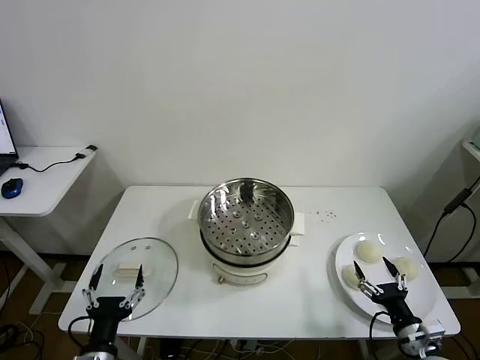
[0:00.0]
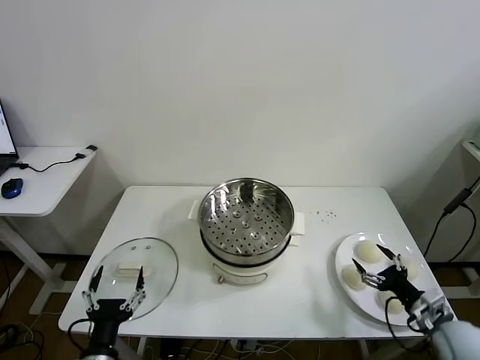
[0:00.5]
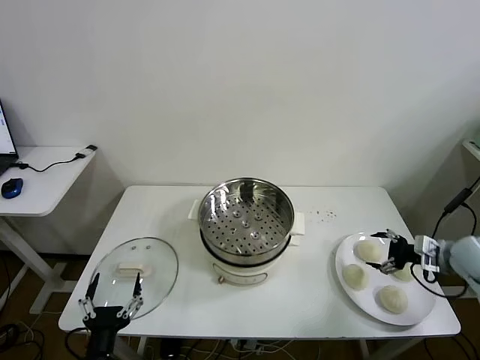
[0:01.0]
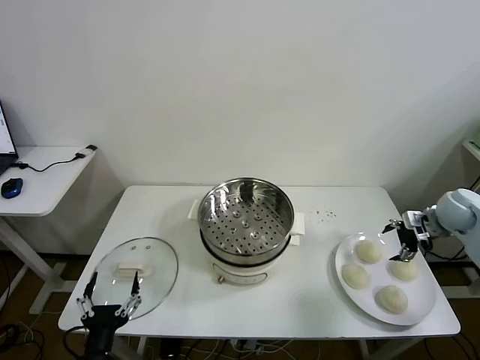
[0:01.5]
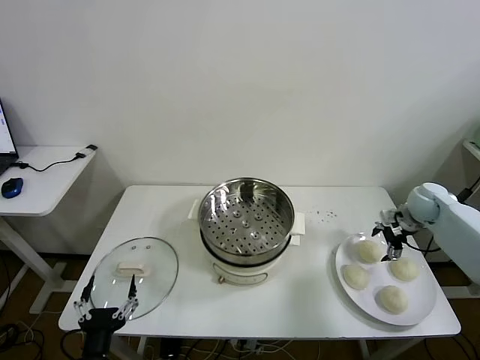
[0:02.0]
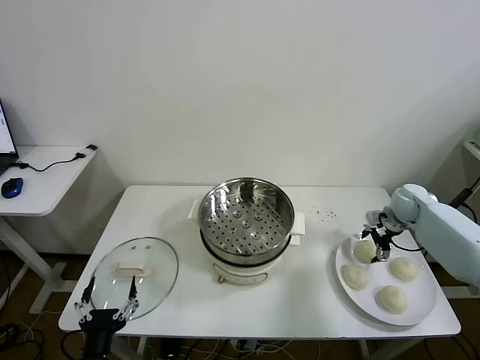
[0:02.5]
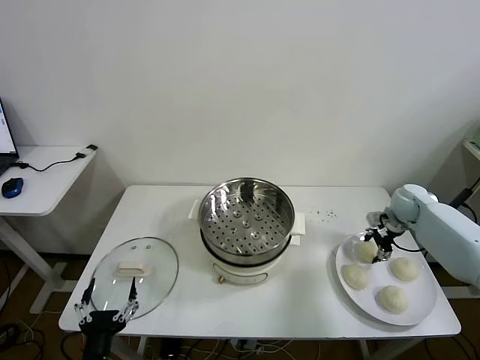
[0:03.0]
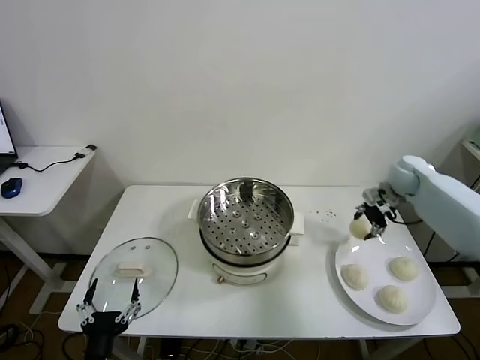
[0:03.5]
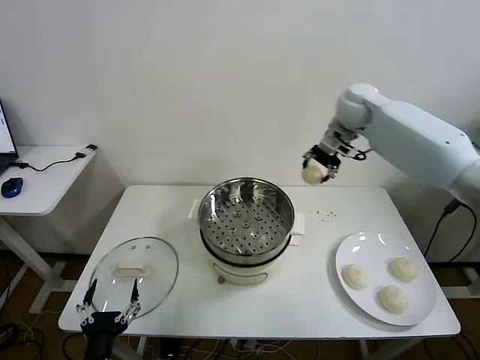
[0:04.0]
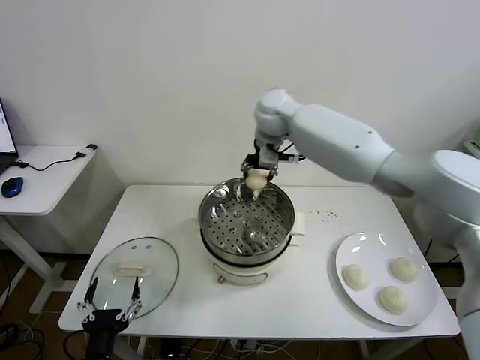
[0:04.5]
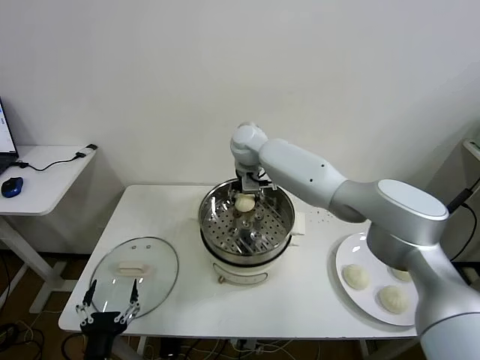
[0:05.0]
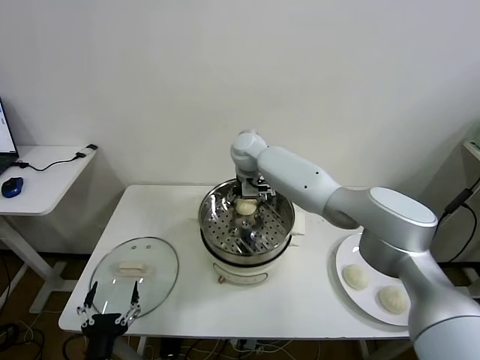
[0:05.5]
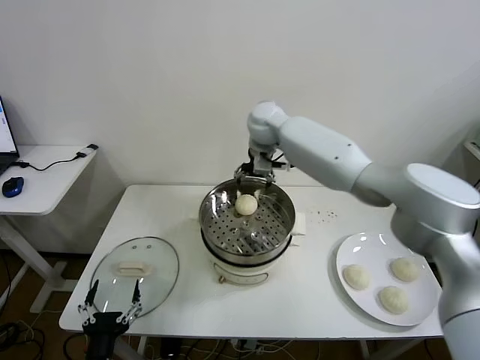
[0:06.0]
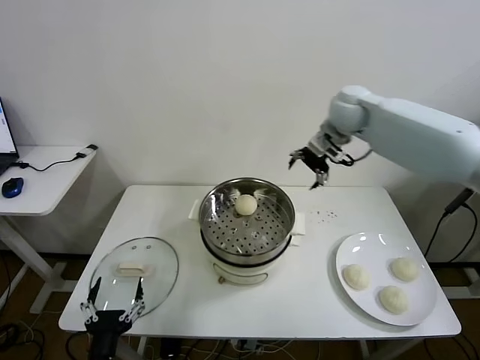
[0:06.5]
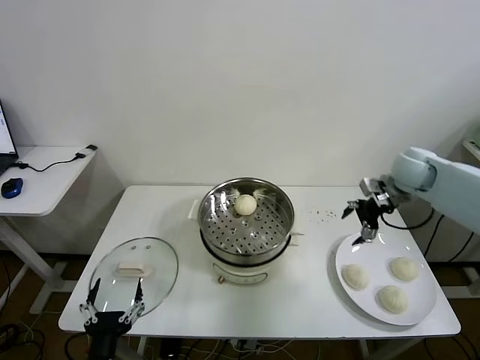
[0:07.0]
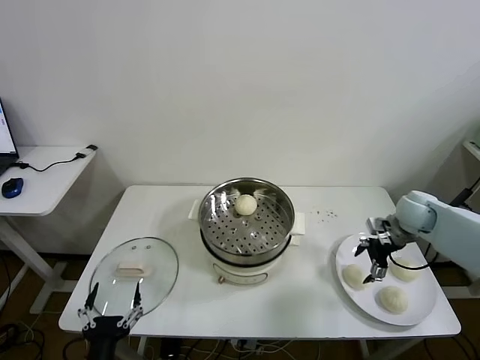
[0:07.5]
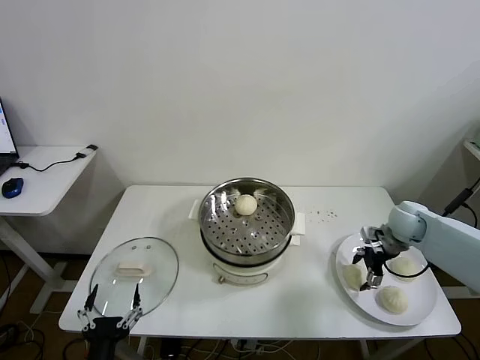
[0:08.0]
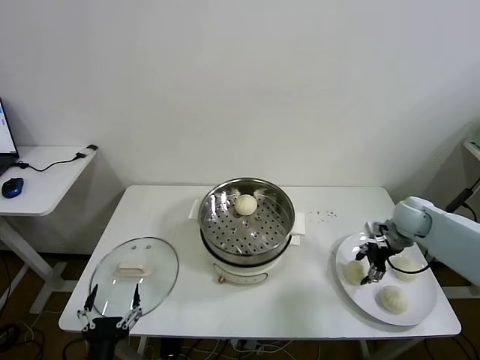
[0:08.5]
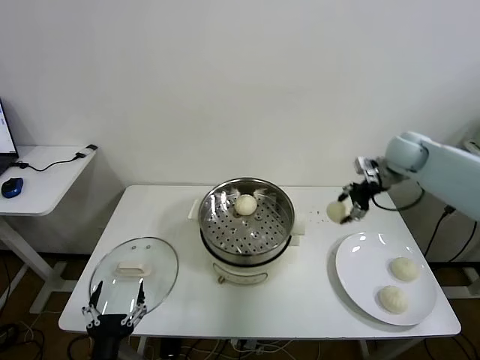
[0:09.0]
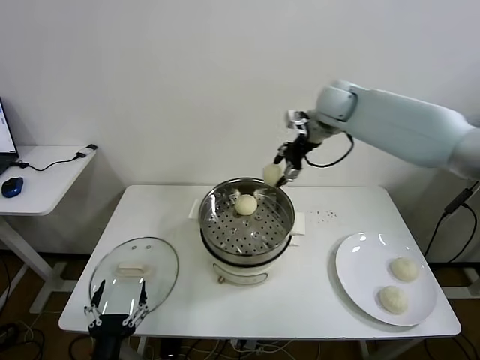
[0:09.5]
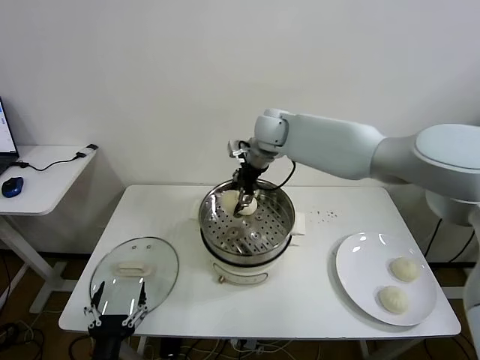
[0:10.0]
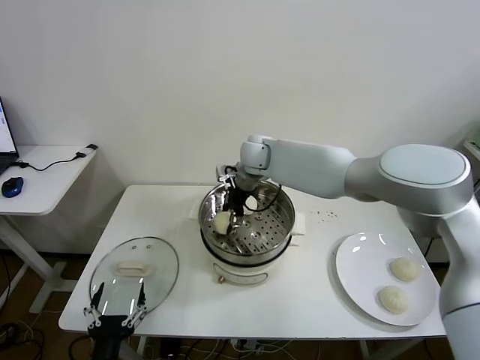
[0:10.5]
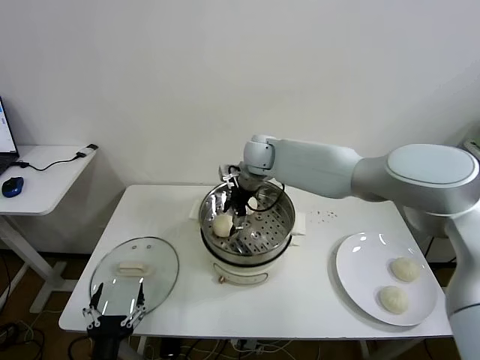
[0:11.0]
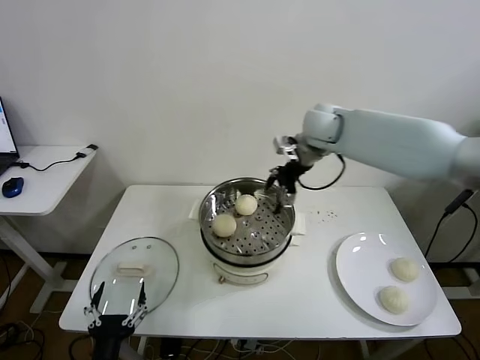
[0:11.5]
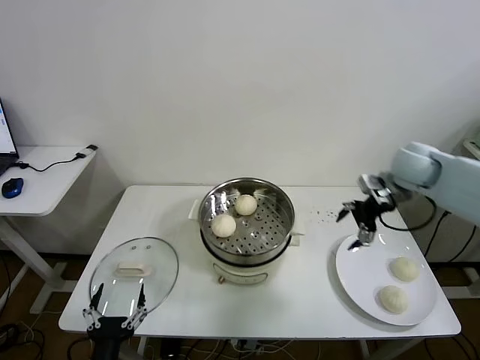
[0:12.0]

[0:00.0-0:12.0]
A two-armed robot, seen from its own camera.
Task of the whole recording: take steamed baozi put them in steamer then cover it.
Step, 0:00.0 to 0:03.0: Grasp the baozi in the plate with right gripper.
Step, 0:03.5 to 0:05.5: Place the baozi on the steamer with right gripper.
Step, 0:06.0 to 0:08.5: Grasp the baozi in the plate with right gripper.
Step, 0:09.0 to 0:11.0: Place the baozi on the steamer with right gripper.
0:02.0 to 0:04.0: The right gripper shifts about 35 cm to the left and upward, and closes.
0:04.0 to 0:06.0: The right gripper is displaced to the left by roughly 15 cm, and opens.
0:06.0 to 0:08.0: The right gripper is displaced to the right, downward and backward by approximately 40 cm.
0:08.0 to 0:10.0: The right gripper is displaced to the left and upward by roughly 40 cm, and closes its fingers.
0:10.0 to 0:12.0: The right gripper is displaced to the right by about 30 cm, and opens.

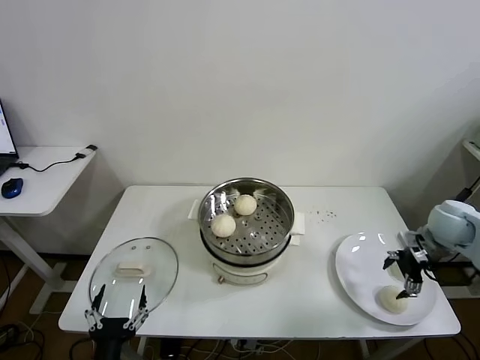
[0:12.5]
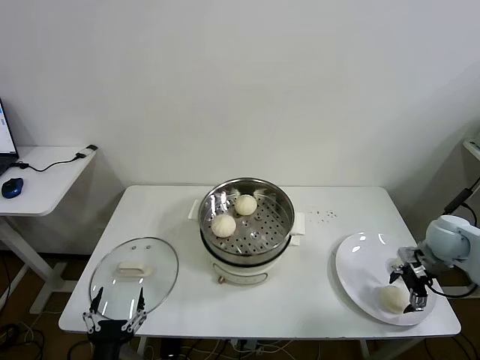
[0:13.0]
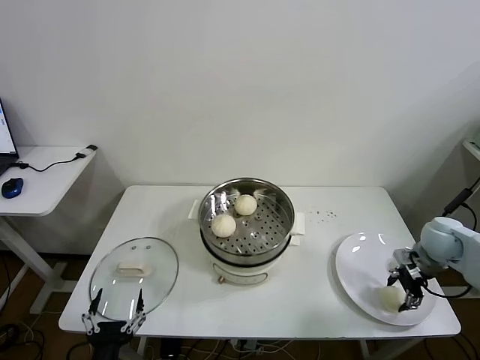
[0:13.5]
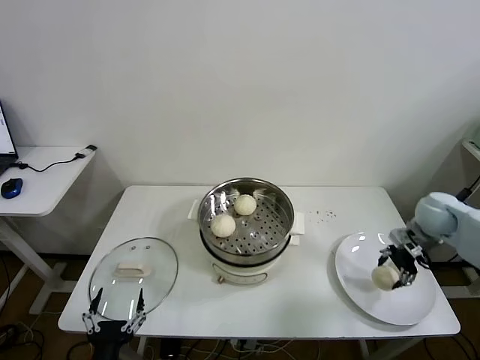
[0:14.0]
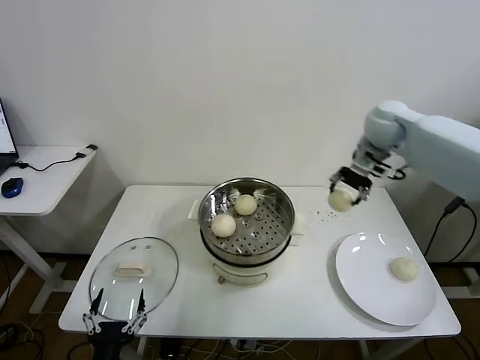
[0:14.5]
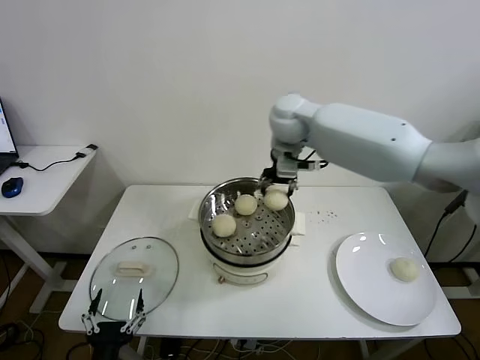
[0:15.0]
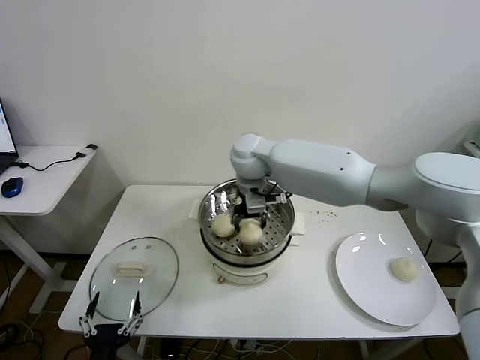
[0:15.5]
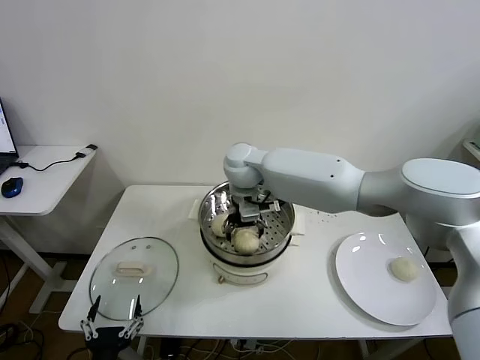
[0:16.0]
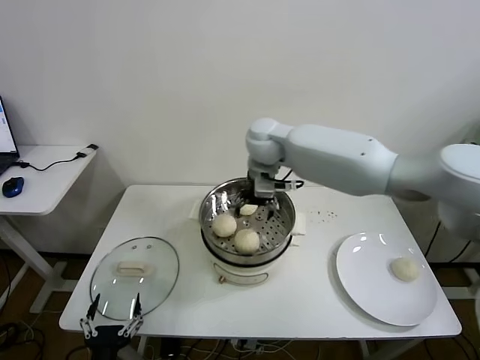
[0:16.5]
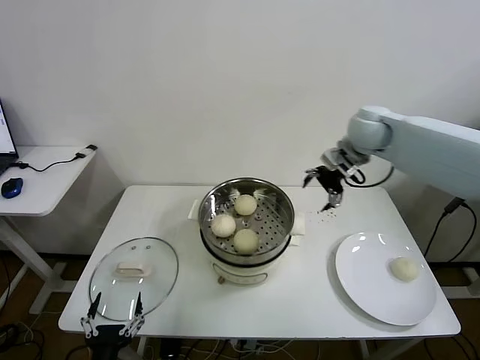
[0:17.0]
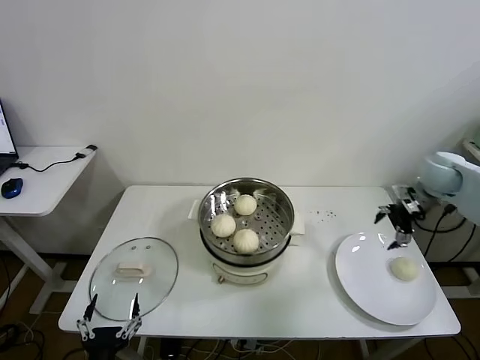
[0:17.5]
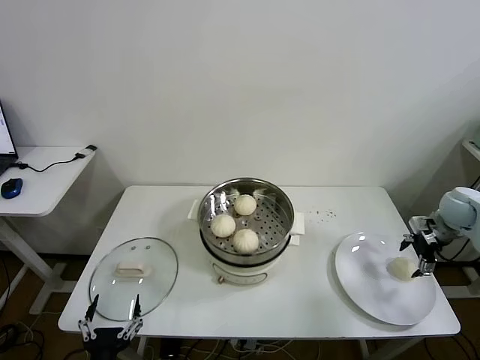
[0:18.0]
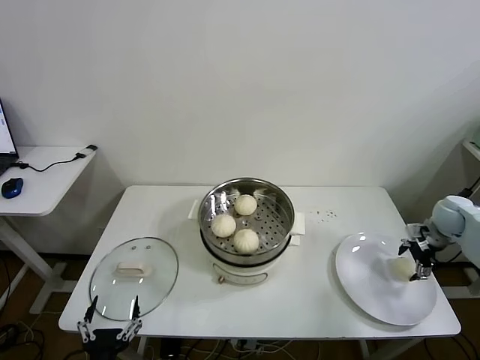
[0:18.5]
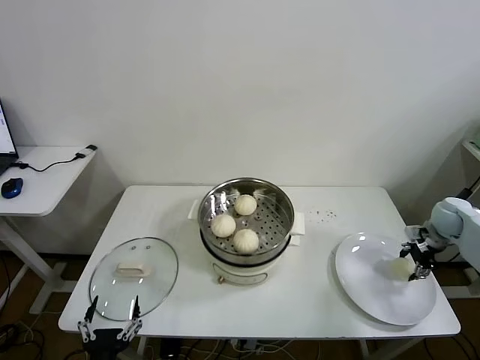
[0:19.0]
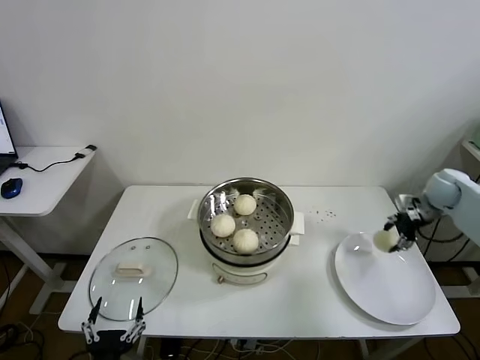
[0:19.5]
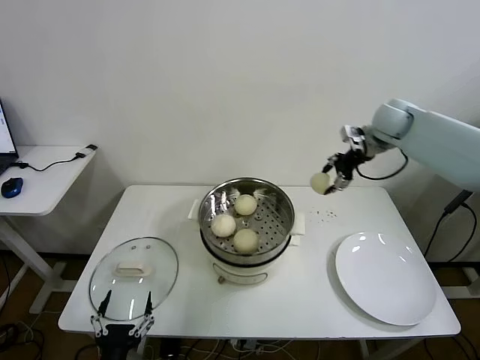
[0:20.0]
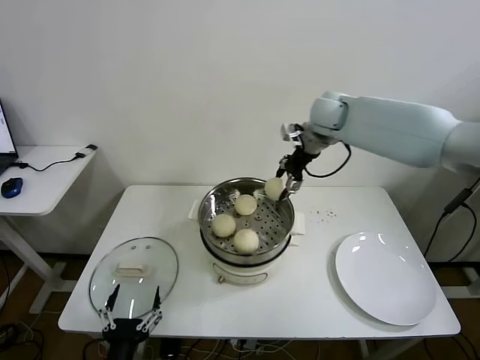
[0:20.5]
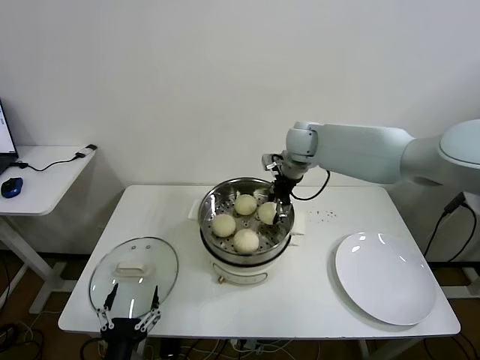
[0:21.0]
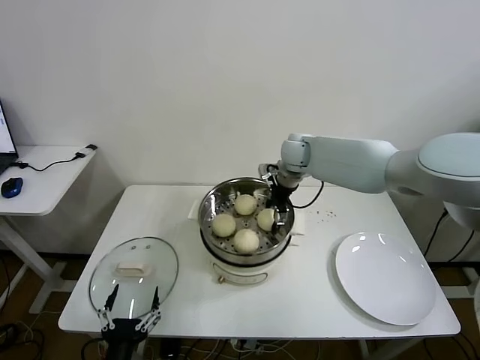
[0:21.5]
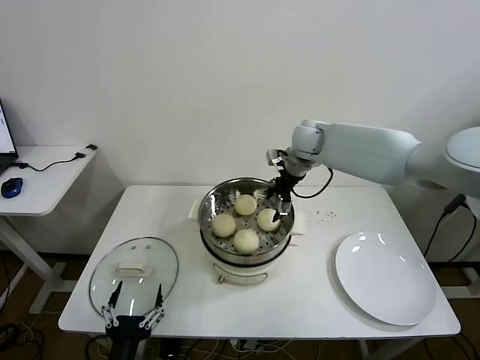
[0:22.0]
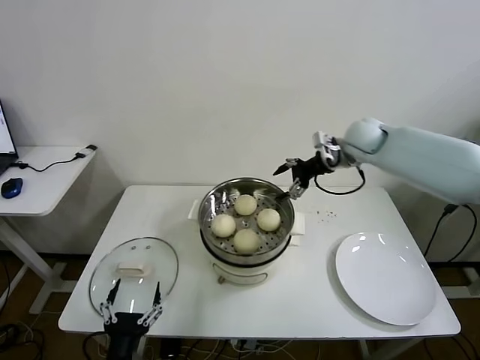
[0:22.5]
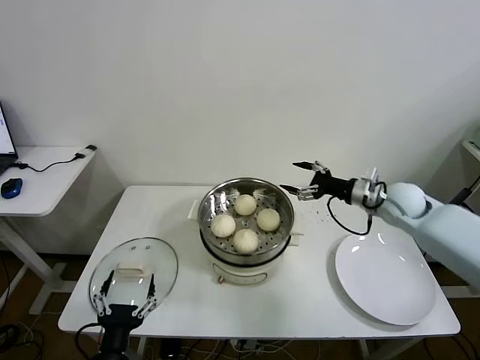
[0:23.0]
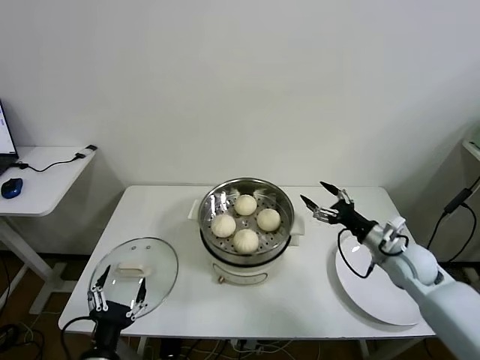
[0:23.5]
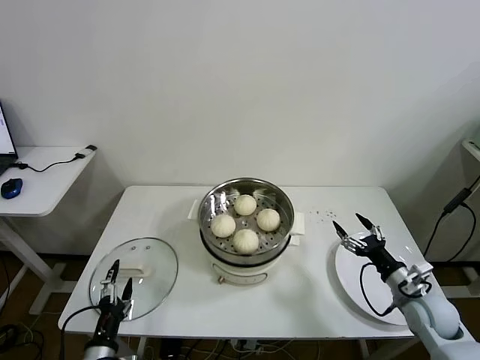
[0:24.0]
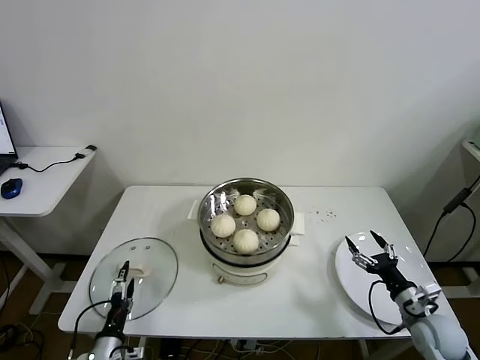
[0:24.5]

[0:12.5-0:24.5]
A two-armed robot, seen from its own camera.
Task of the whole recording: take steamed baozi put them in steamer then cover it.
Step, 0:14.0 to 0:16.5: Place the baozi on the steamer with right gripper.
Step, 0:17.0 to 0:19.0: Grasp the baozi in the plate with right gripper.
Step, 0:19.5 to 0:21.5: Place the baozi on the steamer with right gripper.
0:12.5 to 0:14.5: The right gripper is displaced upward, to the left and forward by approximately 30 cm, and closes.
0:14.5 to 0:16.5: The right gripper is displaced to the left by approximately 25 cm, and opens its fingers.
0:16.5 to 0:18.5: The right gripper travels to the right by some 50 cm.
0:18.5 to 0:20.5: The right gripper is displaced to the left and upward by roughly 40 cm, and closes its fingers.
0:20.5 to 0:22.5: The right gripper goes roughly 10 cm to the right and downward, and opens its fingers.
0:22.5 to 0:24.5: The right gripper goes about 50 cm backward, downward and to the right. Meanwhile the left gripper travels downward, to the left and forward by roughly 15 cm.

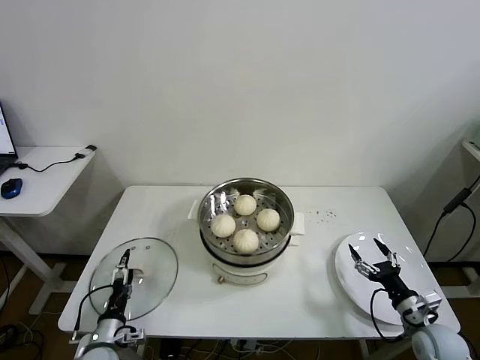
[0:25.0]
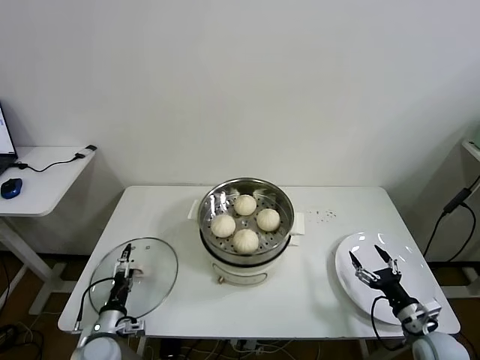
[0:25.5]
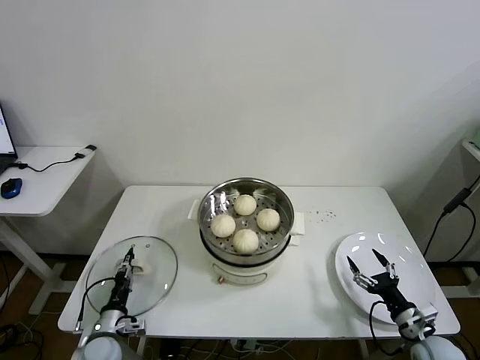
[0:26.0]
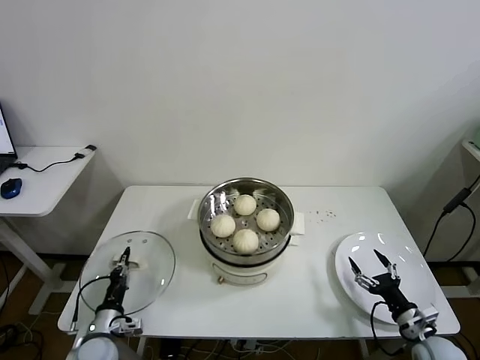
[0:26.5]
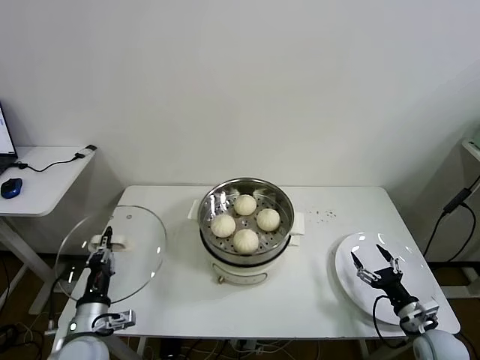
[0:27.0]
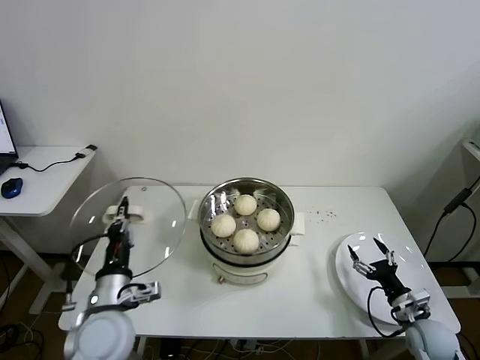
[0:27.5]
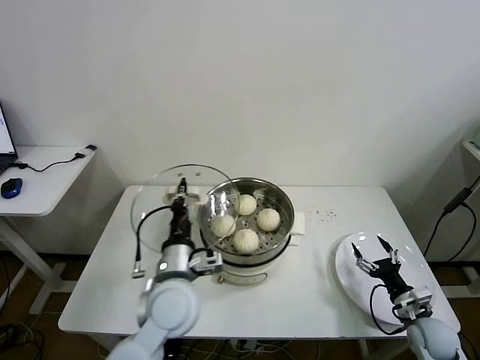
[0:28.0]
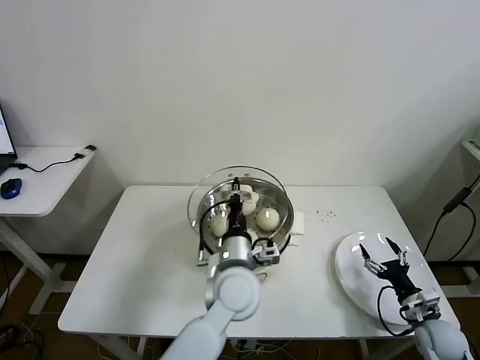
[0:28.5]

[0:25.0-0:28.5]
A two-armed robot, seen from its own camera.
Task of the whole recording: take steamed baozi put them in steamer then cover it.
0:25.0 to 0:27.0: The left gripper moves upward, approximately 10 cm, and closes its fingers.
0:27.0 to 0:28.5: The left gripper travels to the right by about 30 cm.
